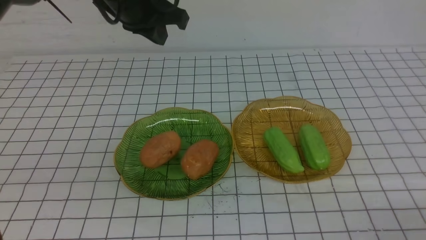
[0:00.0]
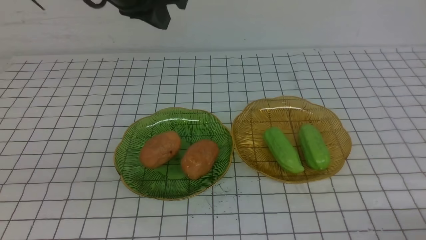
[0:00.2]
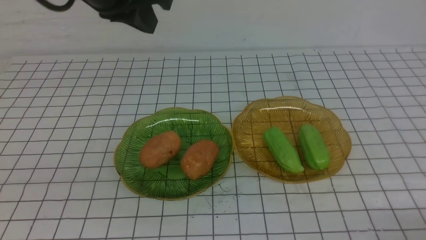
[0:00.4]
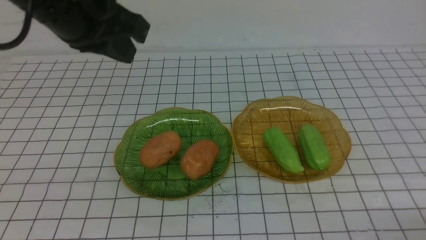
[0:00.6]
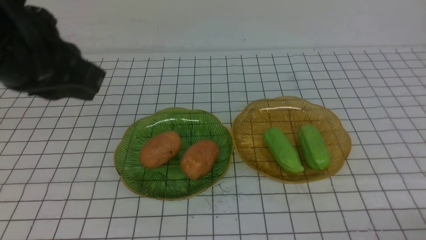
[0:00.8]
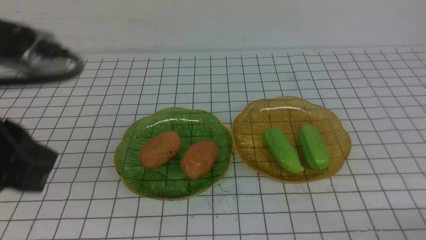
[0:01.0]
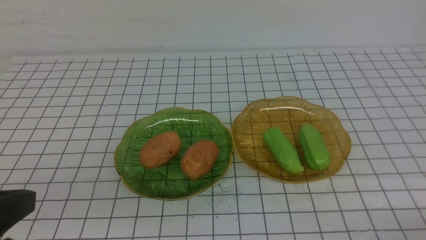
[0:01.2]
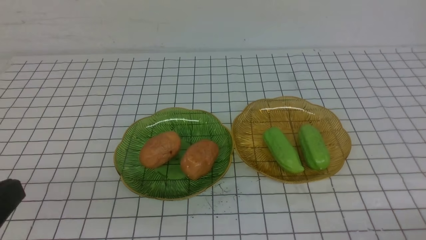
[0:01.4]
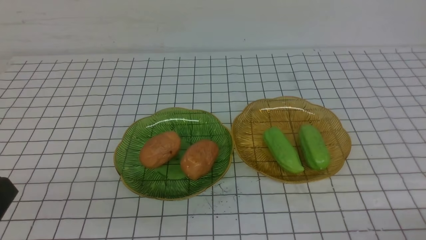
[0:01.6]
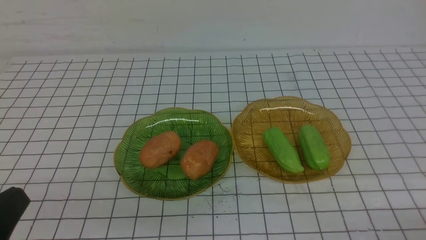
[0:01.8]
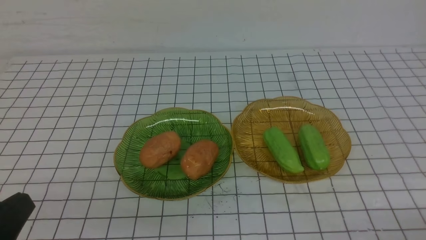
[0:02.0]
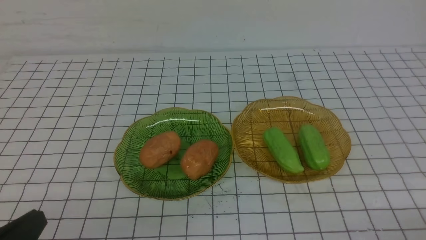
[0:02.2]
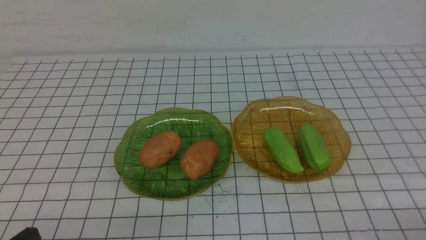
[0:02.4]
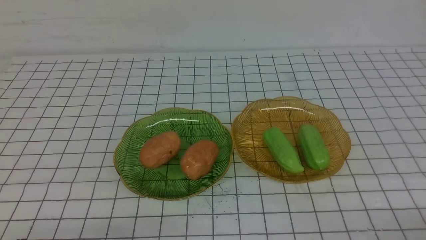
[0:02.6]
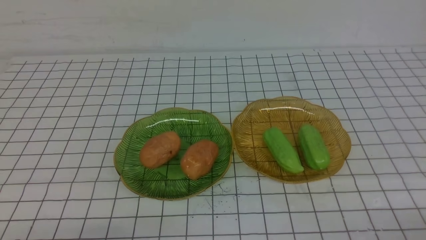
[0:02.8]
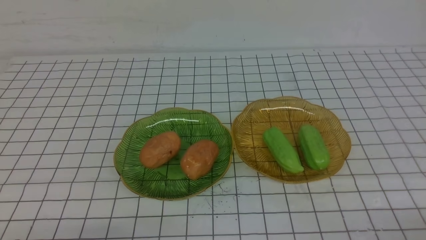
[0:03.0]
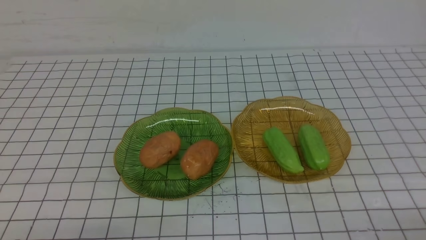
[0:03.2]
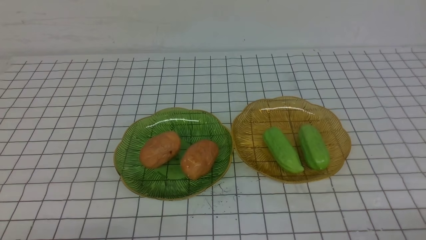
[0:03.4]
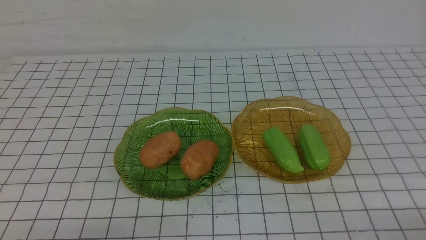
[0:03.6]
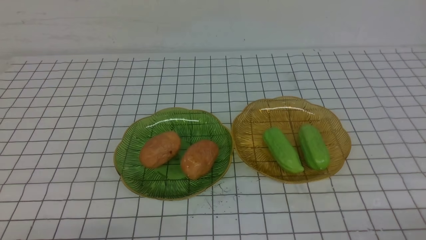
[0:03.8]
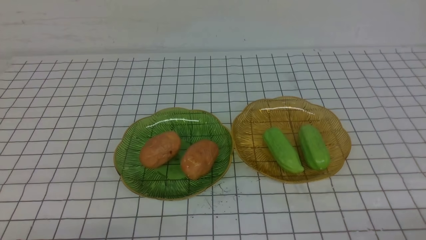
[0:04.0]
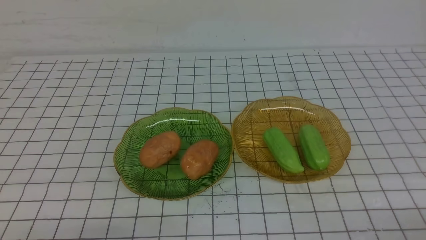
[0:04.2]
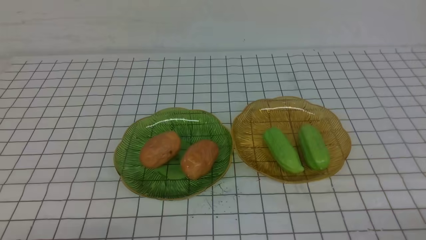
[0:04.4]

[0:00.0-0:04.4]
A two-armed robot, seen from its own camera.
0:00.0 to 0:01.4: The left gripper heads backward, covering about 30 cm.
0:01.4 to 0:03.0: The left gripper heads downward, covering approximately 15 cm.
0:03.0 to 0:04.4: Both grippers stay about where they are.
